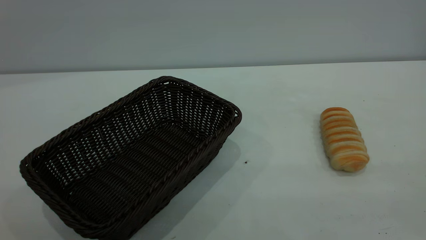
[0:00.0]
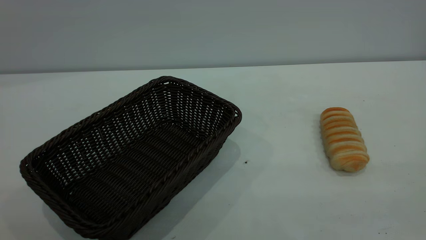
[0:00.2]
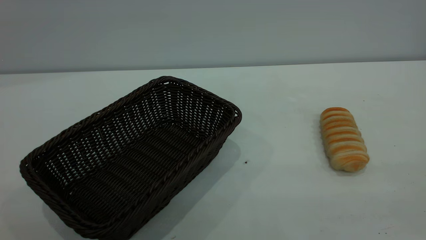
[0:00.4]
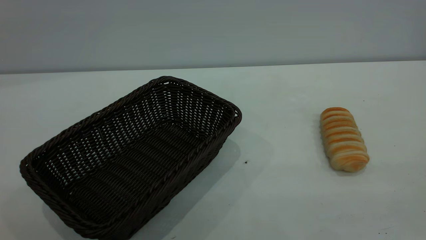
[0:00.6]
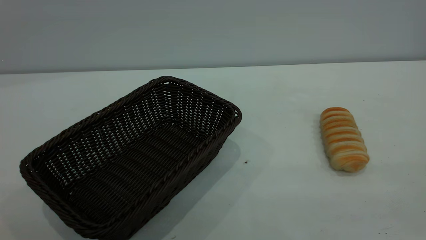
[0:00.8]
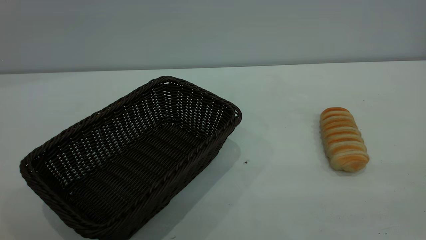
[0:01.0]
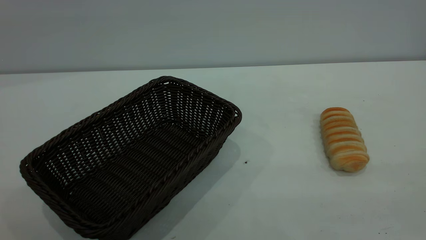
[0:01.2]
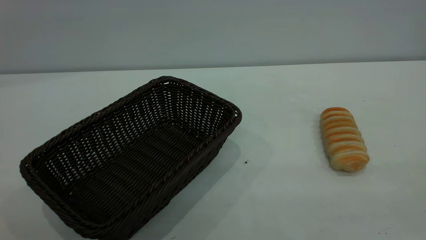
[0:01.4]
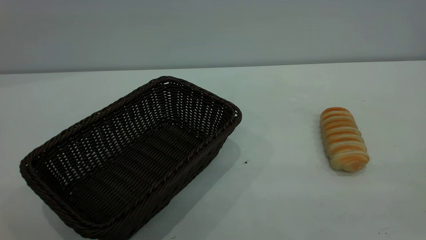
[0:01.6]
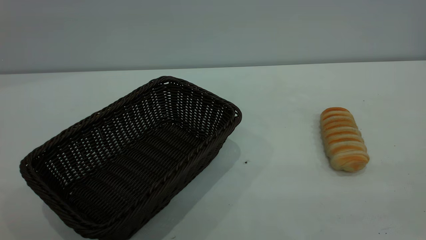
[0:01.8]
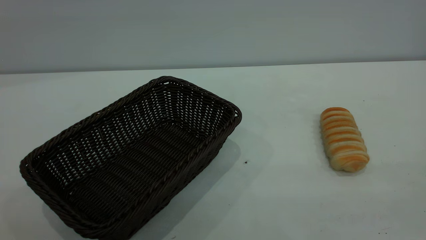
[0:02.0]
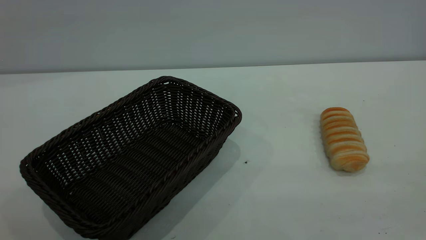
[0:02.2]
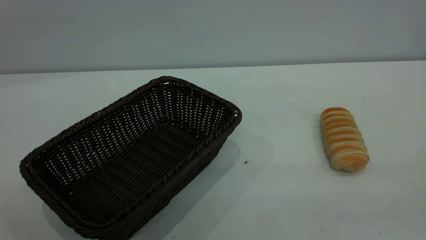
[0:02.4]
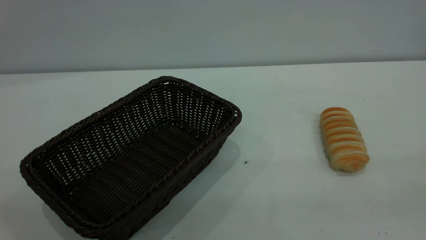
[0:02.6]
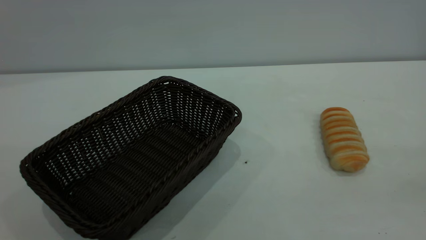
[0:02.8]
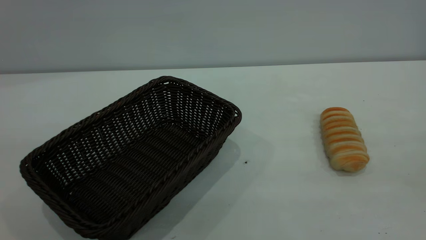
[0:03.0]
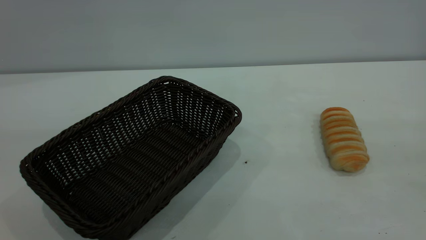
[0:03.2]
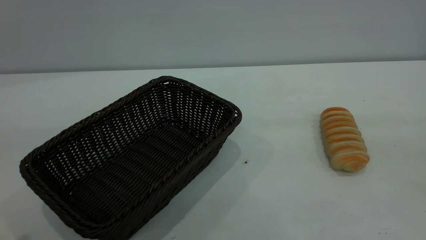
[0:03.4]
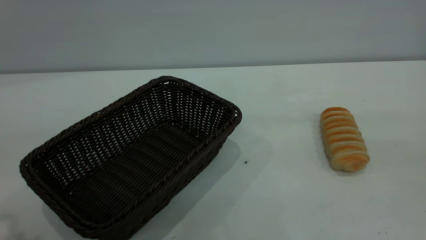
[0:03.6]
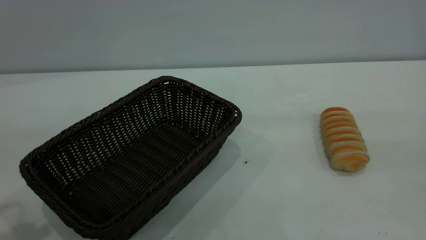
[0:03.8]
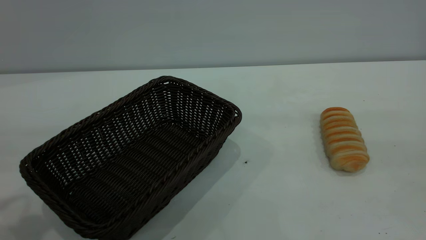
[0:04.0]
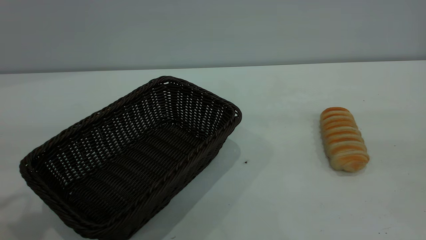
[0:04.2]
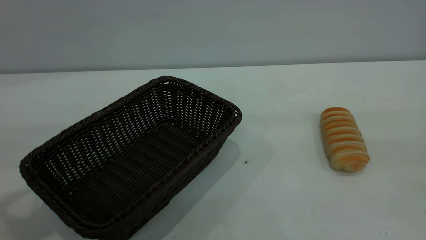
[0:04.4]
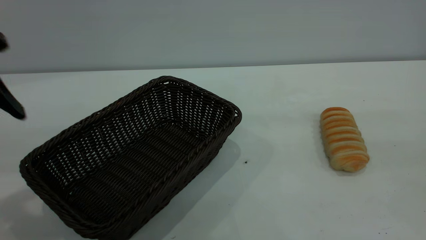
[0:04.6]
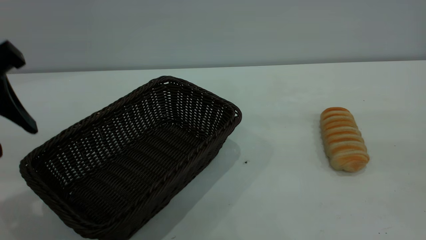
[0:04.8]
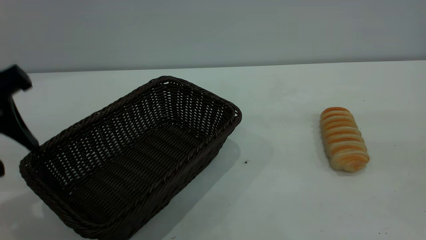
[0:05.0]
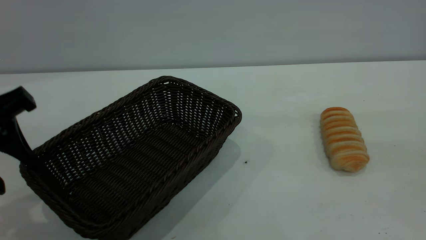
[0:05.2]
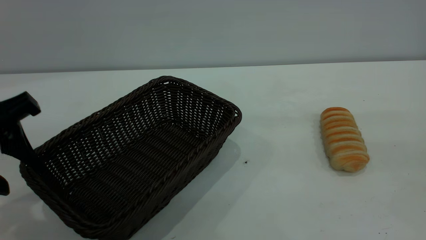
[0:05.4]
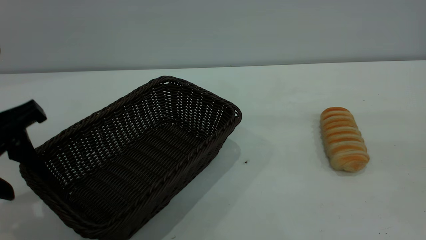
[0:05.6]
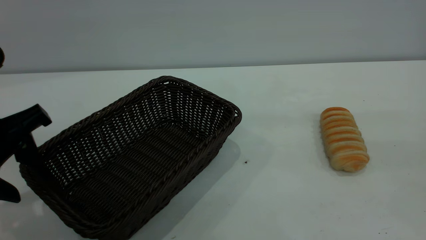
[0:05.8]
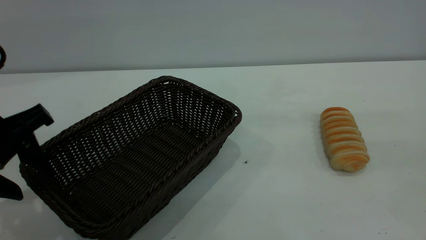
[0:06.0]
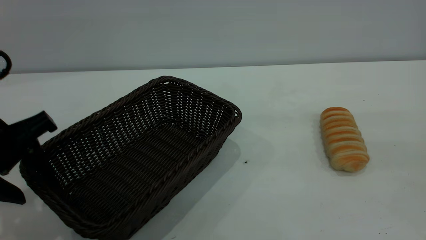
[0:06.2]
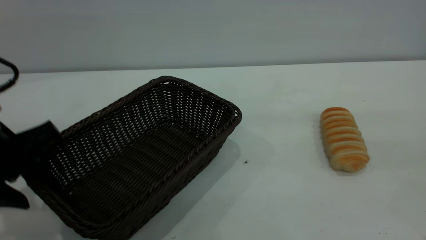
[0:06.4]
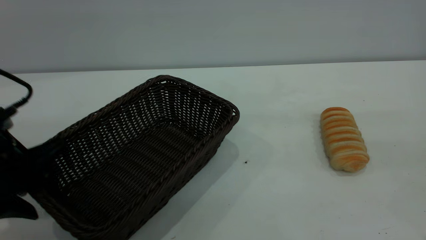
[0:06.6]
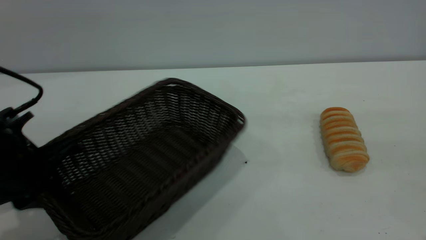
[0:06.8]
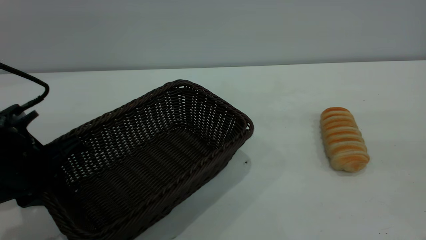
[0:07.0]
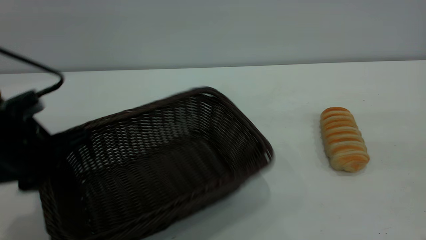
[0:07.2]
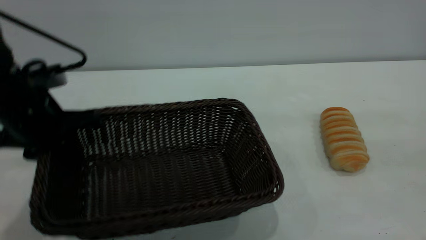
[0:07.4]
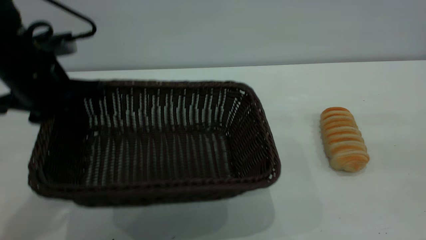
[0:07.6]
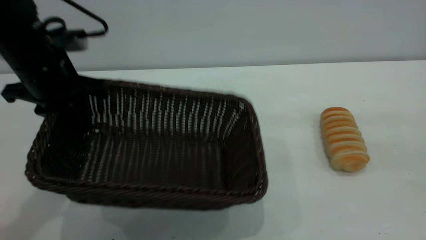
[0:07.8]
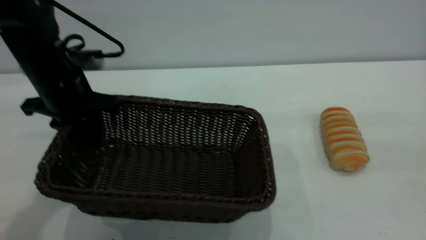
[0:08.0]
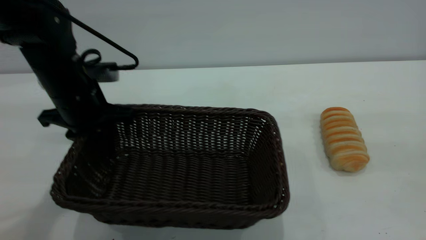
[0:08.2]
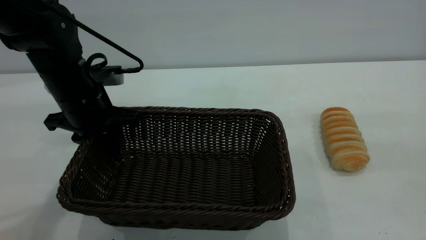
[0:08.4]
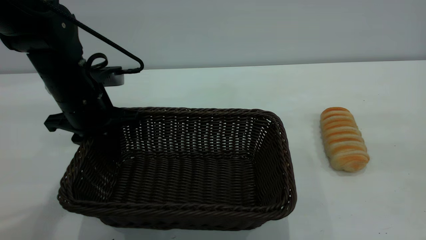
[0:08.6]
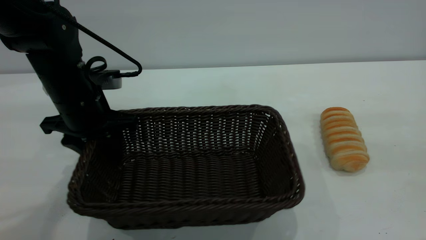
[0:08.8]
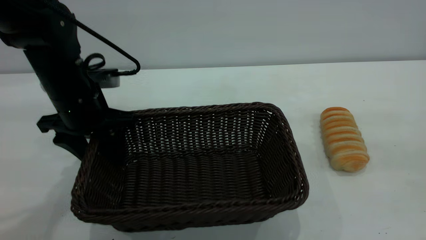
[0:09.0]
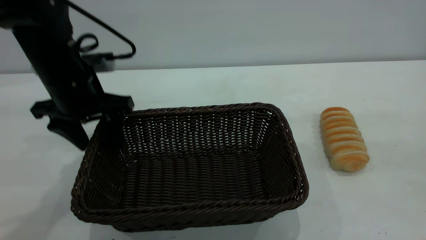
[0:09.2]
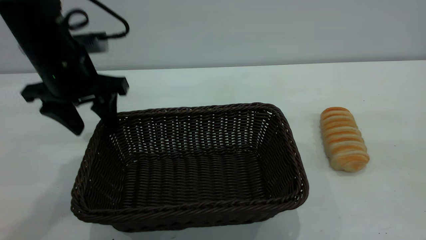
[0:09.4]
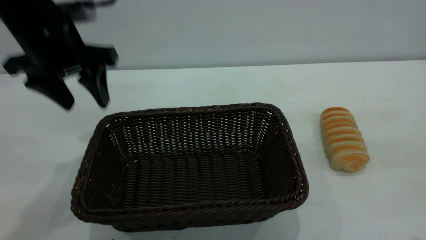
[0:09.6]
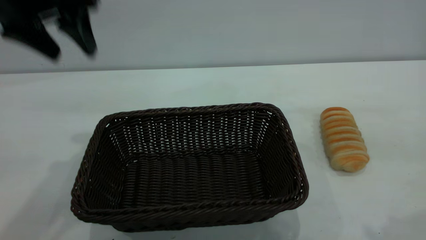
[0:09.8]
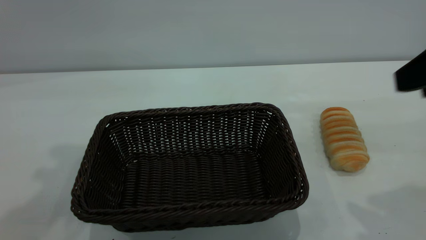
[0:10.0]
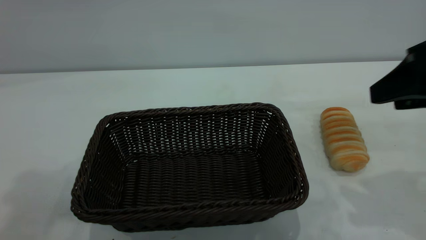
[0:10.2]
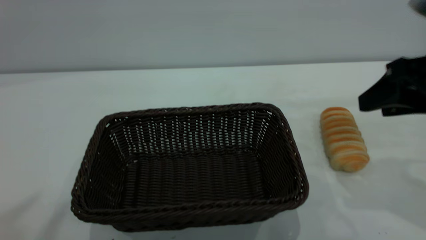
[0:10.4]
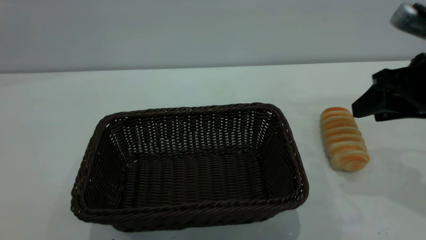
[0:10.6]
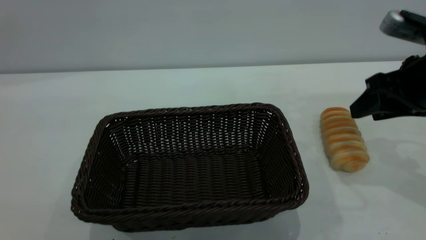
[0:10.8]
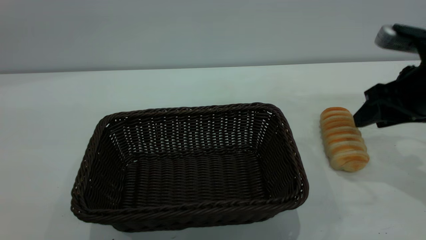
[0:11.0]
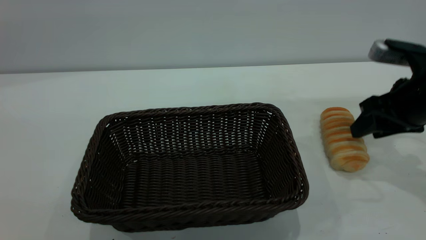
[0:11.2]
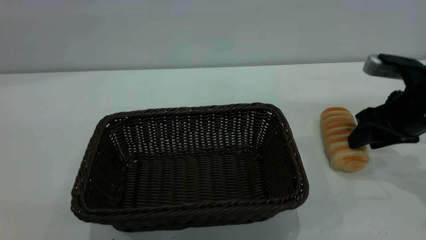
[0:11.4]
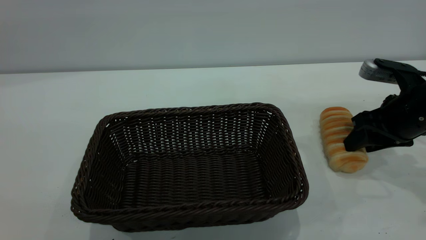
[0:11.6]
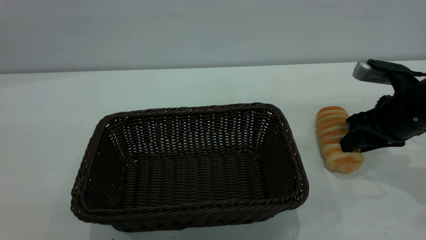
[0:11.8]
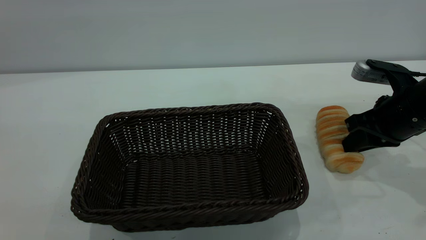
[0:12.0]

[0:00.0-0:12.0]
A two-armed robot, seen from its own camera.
Task of the whole recording: One hand grasps the black basket and places it in the middle of the table, while the other hand picks up the long bread and puts it into the black basket.
Step, 0:00.0 to 0:09.6: Move the basket to the center of view.
0:00.0 to 0:01.6: Both grippers stay about where they are.
0:04.4 to 0:06.0: The left gripper shifts roughly 10 cm downward.
0:06.0 to 0:07.6: The left gripper goes some 10 cm forward, and closes.
0:07.6 to 0:09.0: The left gripper heads downward, covering about 5 cm, and opens its fingers.
0:09.0 to 0:10.4: The right gripper goes some 20 cm forward and downward, while the left gripper travels upward and backward by roughly 40 cm.
0:10.4 to 0:12.0: The right gripper heads downward and forward, covering some 10 cm, and closes.

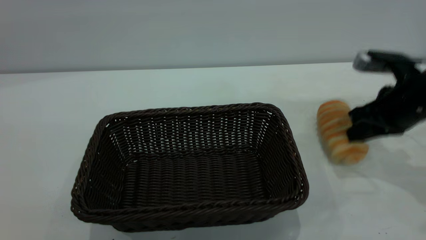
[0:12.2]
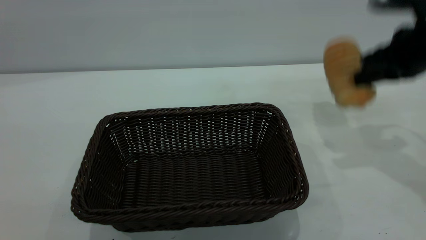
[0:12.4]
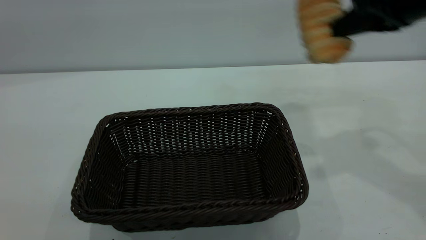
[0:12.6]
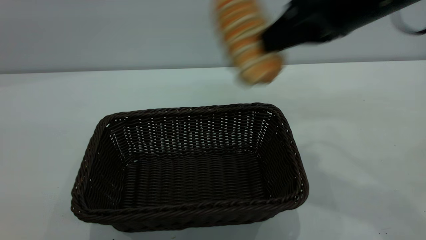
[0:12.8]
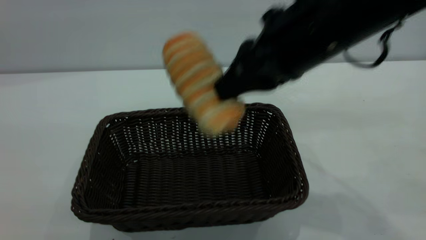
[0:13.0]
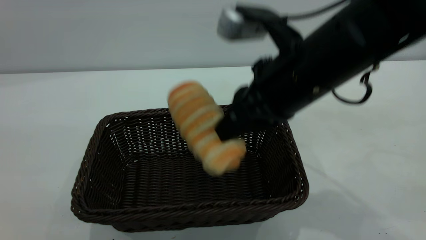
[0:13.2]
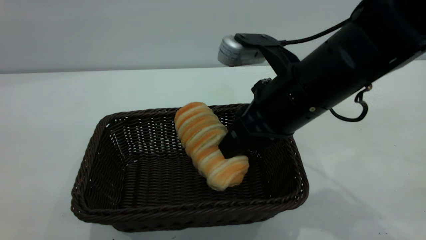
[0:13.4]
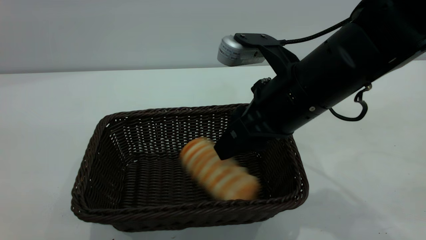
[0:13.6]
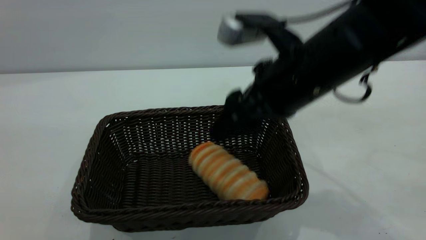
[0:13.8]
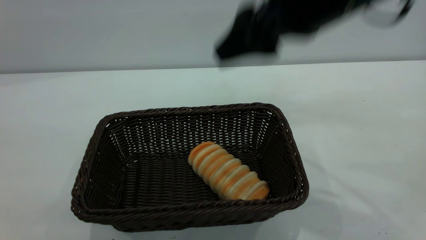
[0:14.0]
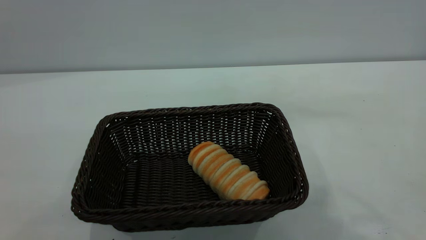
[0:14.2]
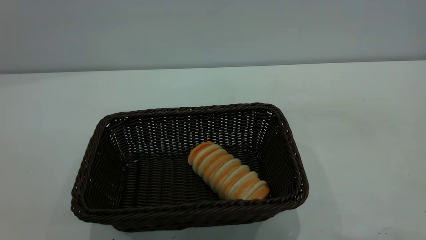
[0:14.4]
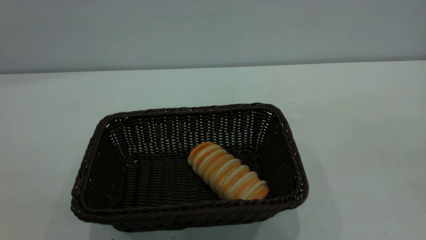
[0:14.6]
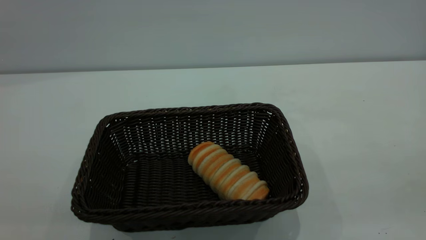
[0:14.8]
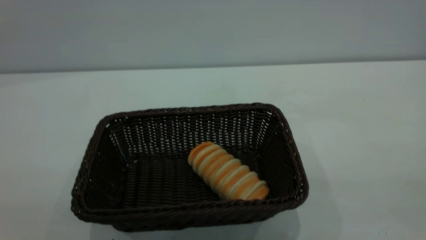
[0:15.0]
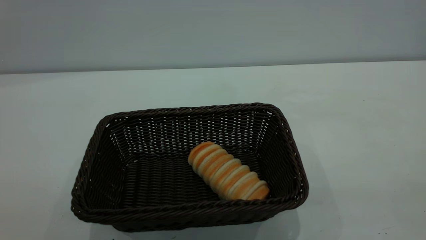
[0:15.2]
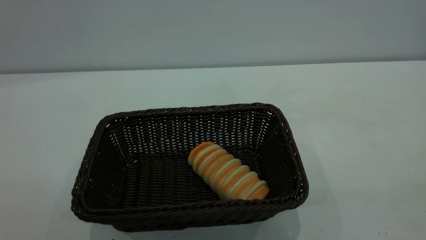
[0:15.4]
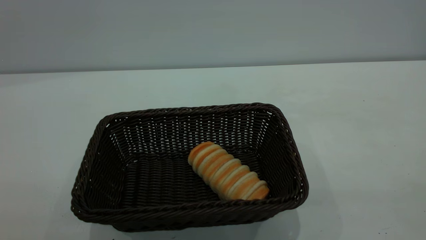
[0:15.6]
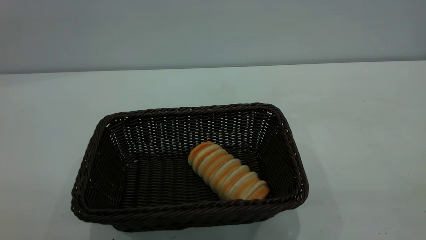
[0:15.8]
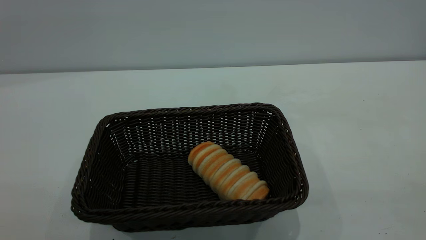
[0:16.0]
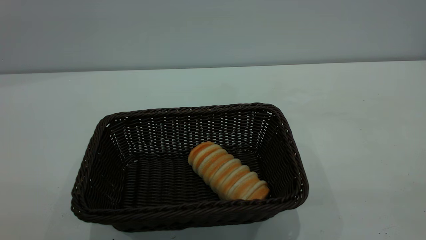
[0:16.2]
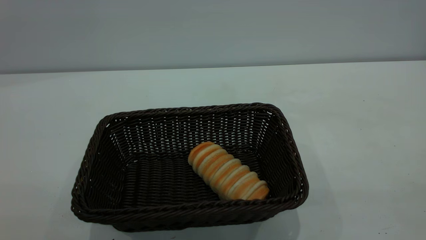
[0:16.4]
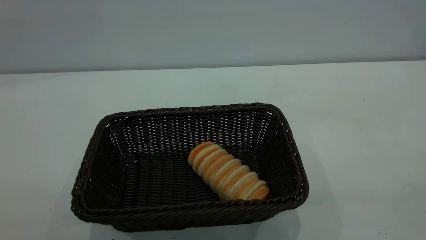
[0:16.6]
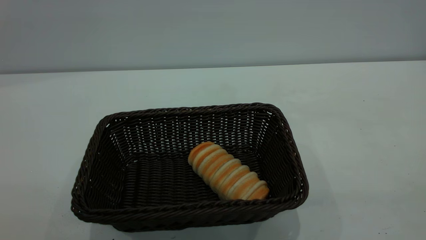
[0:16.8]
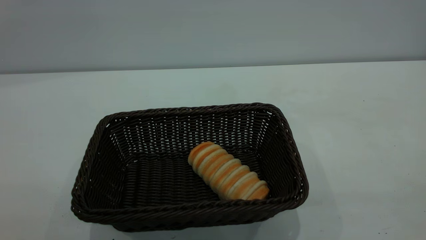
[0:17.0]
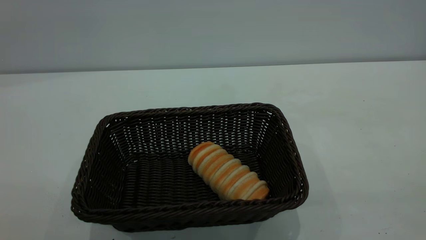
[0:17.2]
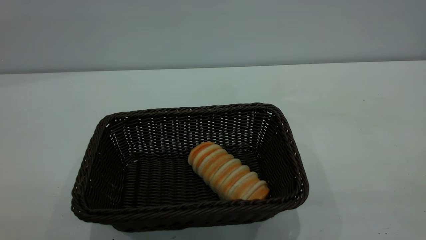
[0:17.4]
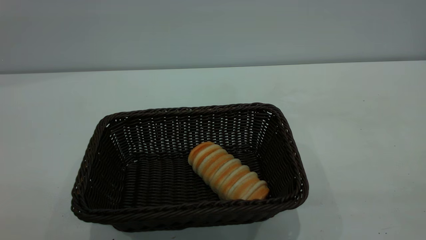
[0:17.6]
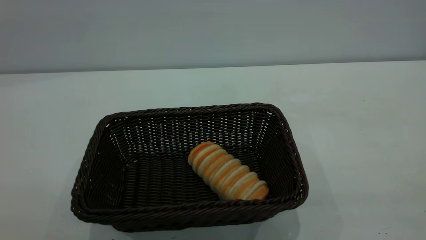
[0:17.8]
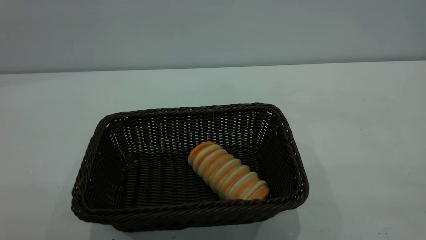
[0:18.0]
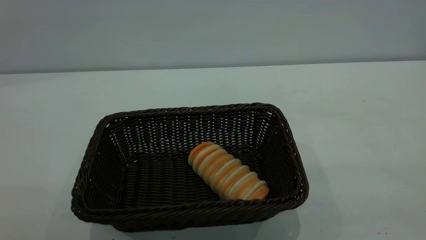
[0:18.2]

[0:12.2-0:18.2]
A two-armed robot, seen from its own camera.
Task of the whole recording: One hand grasps the black basket and places it in the middle of the table, while the other hand picks up the long bread and puts it into the black basket.
Step, 0:12.6 to 0:13.8: place the bread into the basket.
0:12.2 to 0:13.8: The right gripper travels to the left and upward by about 20 cm, and opens up.
0:13.8 to 0:15.2: The right gripper shifts some 35 cm backward, to the right and upward, while the left gripper travels downward by some 10 cm.
